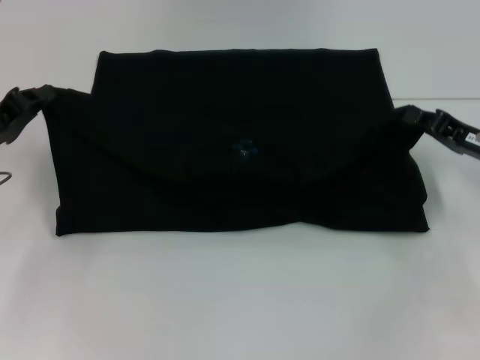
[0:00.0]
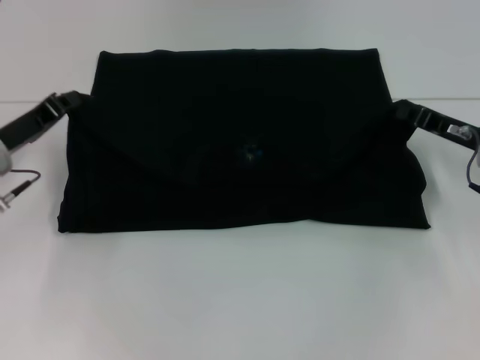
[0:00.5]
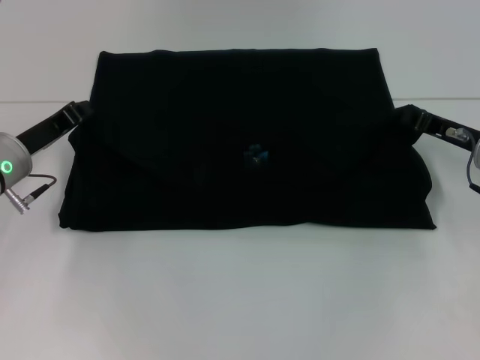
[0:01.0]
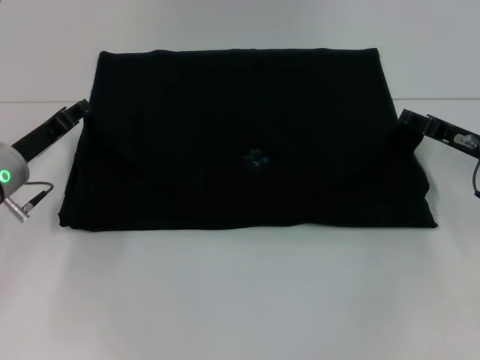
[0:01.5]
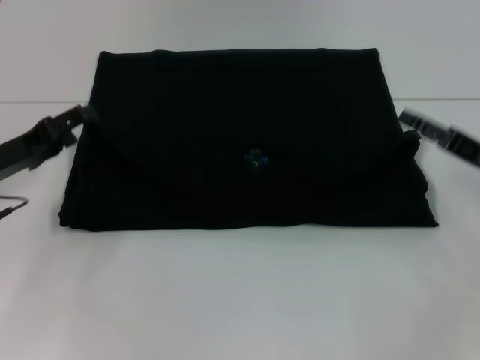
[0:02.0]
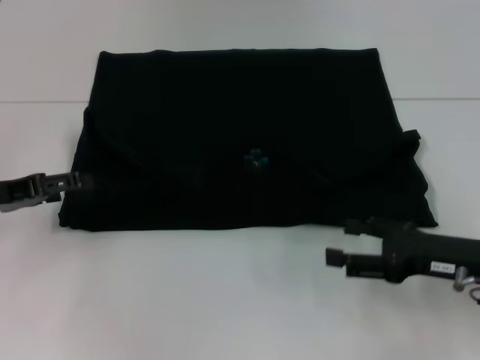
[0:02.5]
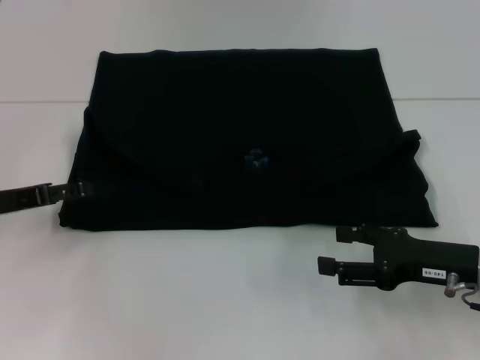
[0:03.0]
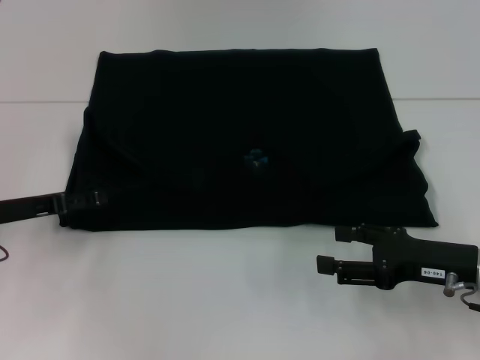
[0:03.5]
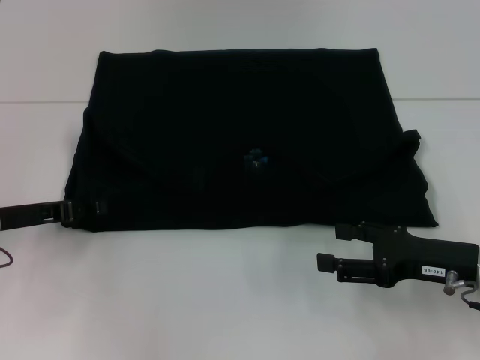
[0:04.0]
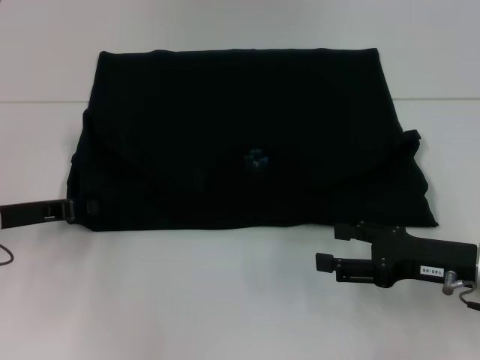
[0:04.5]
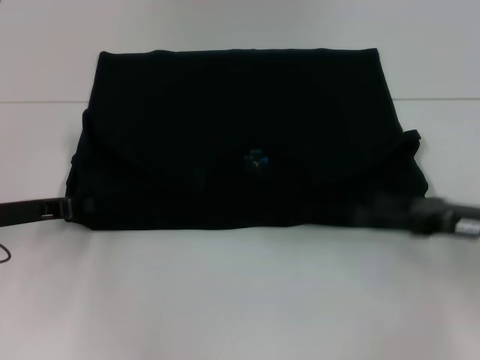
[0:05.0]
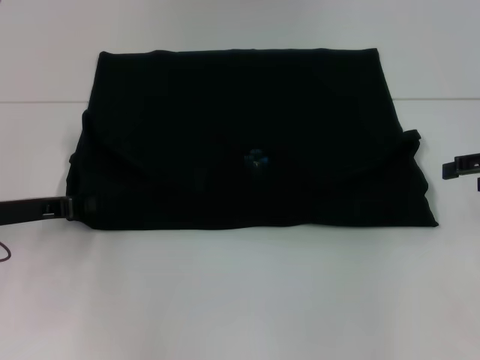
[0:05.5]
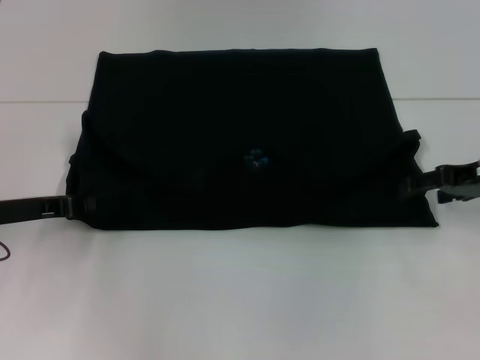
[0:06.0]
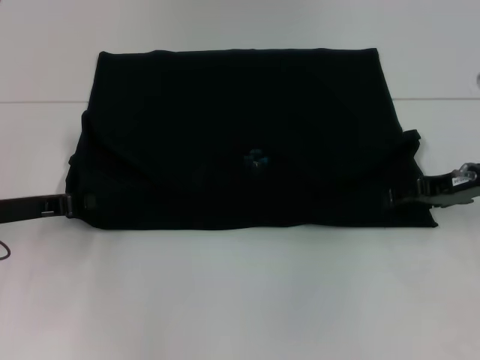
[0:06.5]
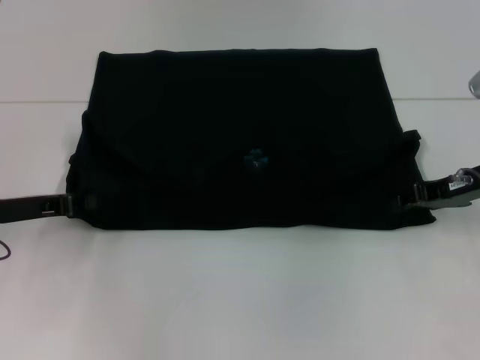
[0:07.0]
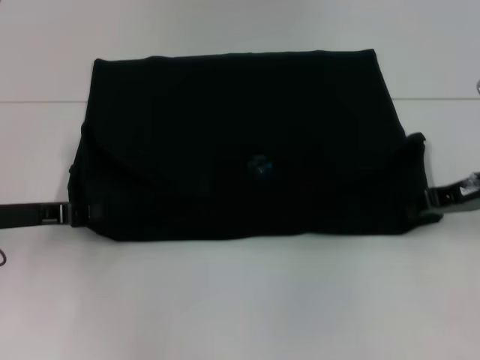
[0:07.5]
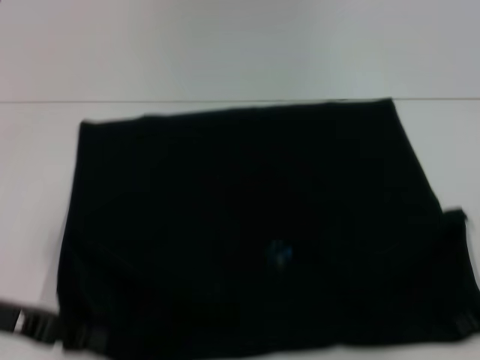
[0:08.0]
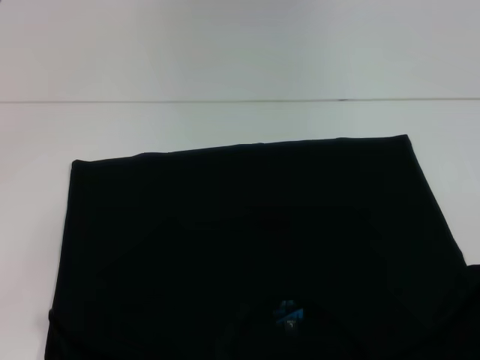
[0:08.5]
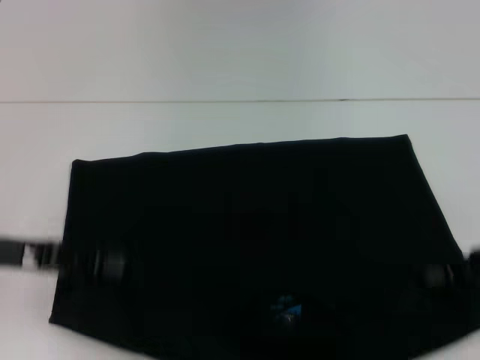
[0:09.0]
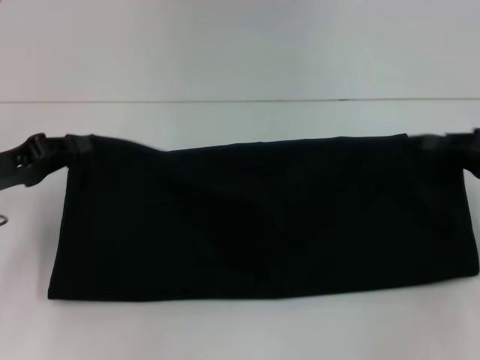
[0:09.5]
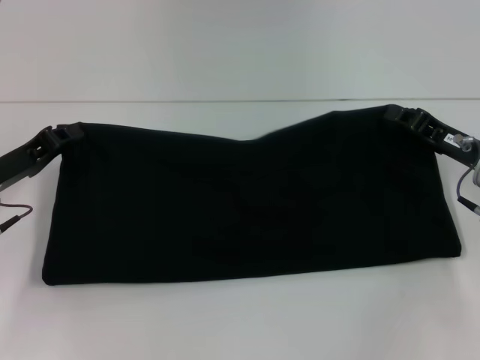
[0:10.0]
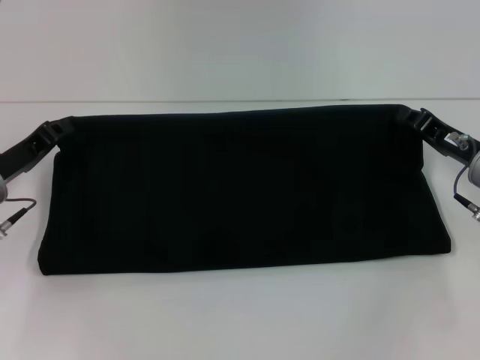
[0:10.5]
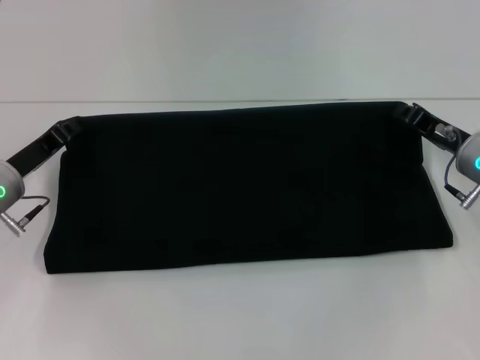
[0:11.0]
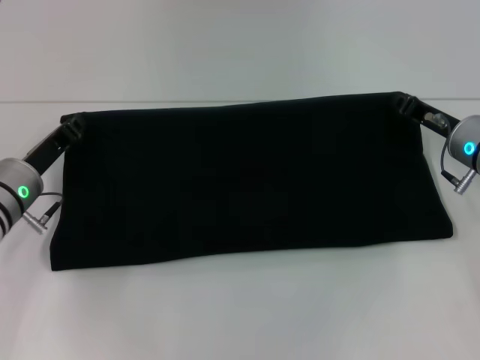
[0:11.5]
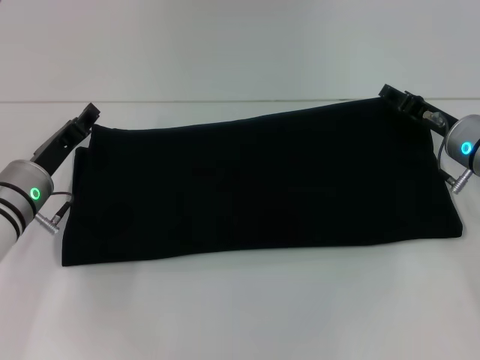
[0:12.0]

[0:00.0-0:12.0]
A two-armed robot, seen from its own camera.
Step, 0:02.0 to 0:08.0: Pull the clothes with your left hand.
Step, 0:02.0 to 0:08.0: Pull the clothes with your right hand.
0:00.0 to 0:02.0: The right gripper opens its fingers. Meanwhile the left gripper opens its fingers.
0:02.0 to 0:04.0: The right gripper is displaced backward by approximately 5 cm.
0:04.0 to 0:06.0: The right gripper is displaced forward and upward by some 10 cm. The left gripper closes.
0:06.0 to 0:08.0: The two grippers go about 5 cm backward. The right gripper closes up.
0:08.0 to 0:10.0: The right gripper changes place by some 10 cm, while the left gripper heads forward, covering roughly 5 cm.
0:10.0 to 0:12.0: The right gripper shifts by roughly 5 cm, and opens its fingers; the left gripper travels to the right by about 5 cm.

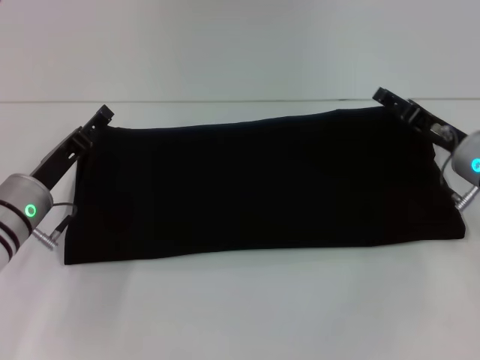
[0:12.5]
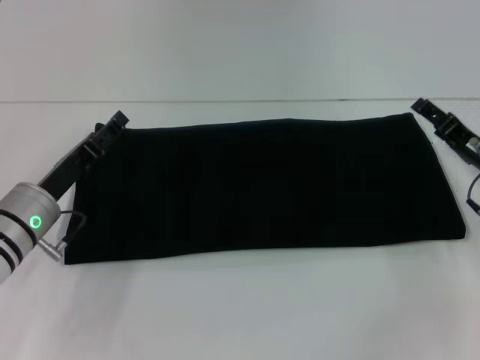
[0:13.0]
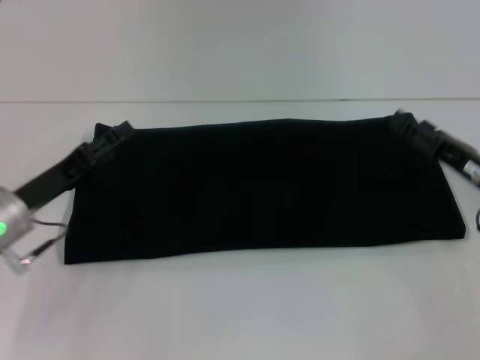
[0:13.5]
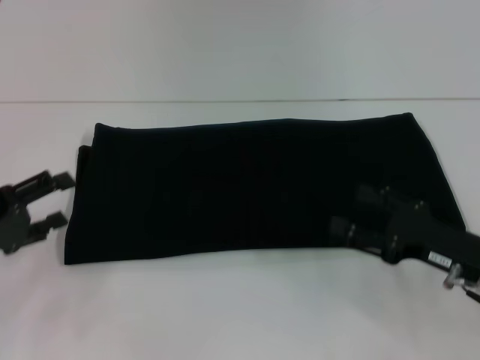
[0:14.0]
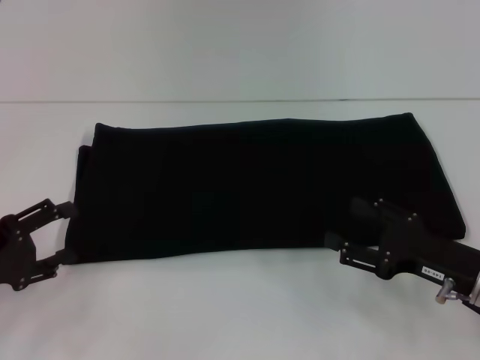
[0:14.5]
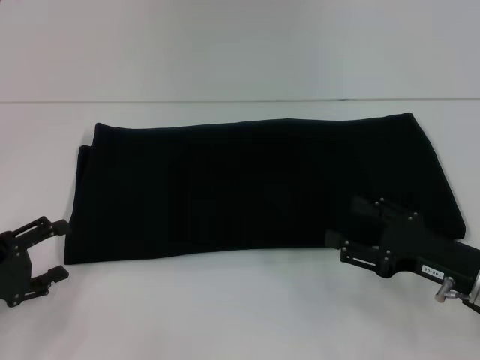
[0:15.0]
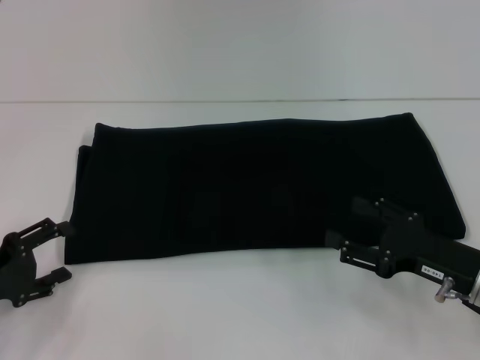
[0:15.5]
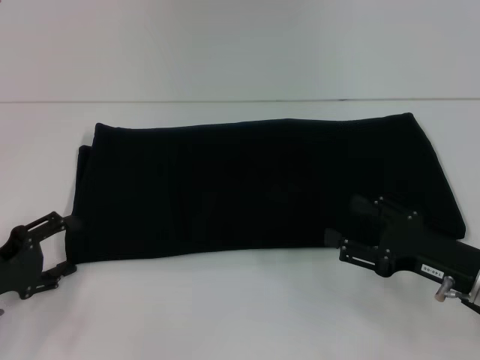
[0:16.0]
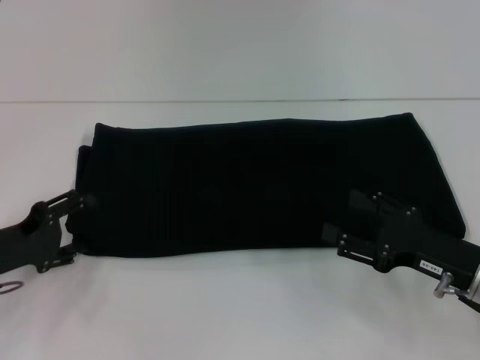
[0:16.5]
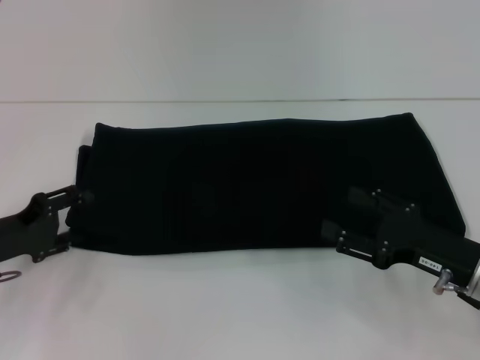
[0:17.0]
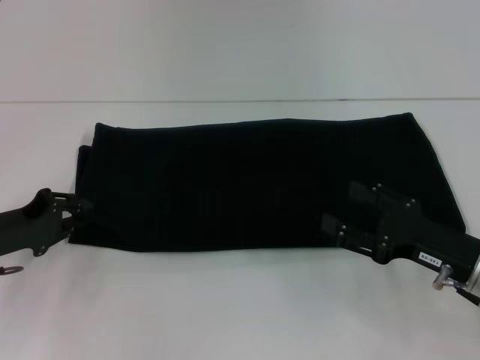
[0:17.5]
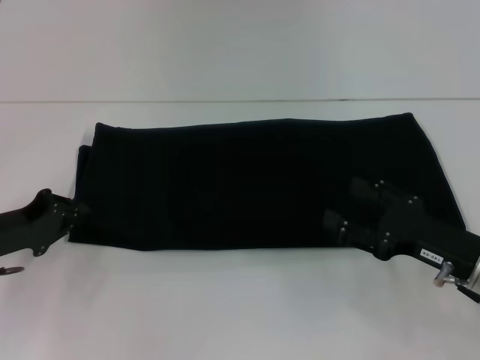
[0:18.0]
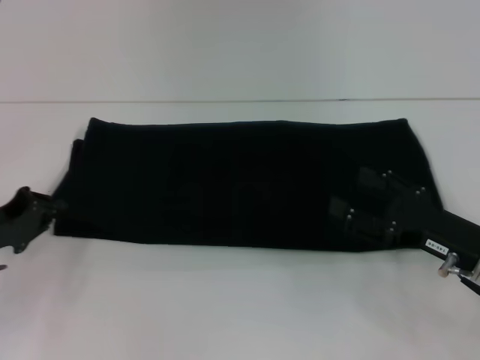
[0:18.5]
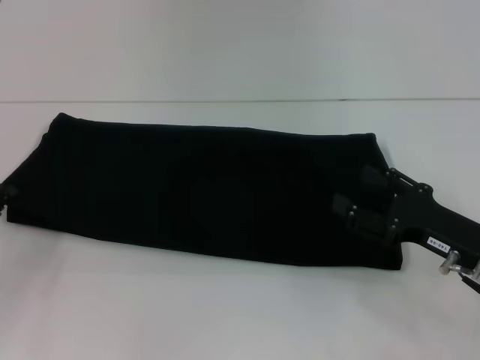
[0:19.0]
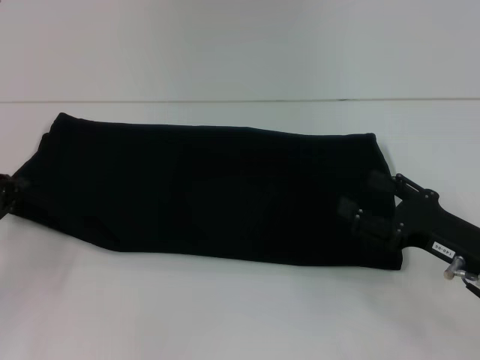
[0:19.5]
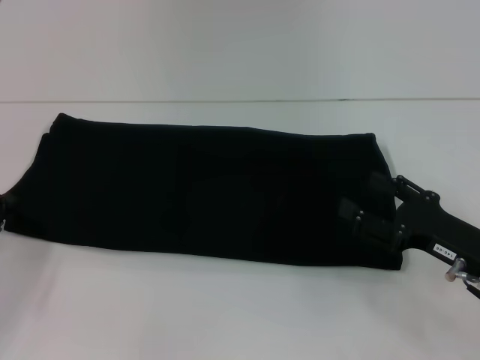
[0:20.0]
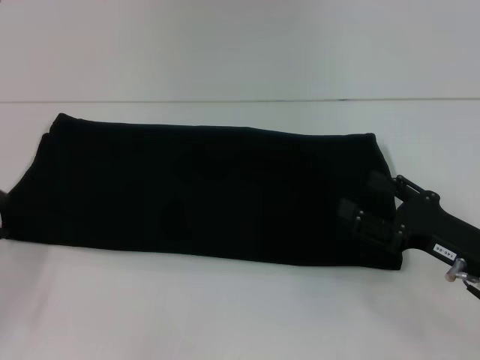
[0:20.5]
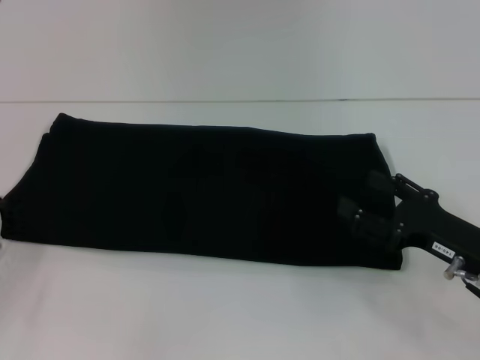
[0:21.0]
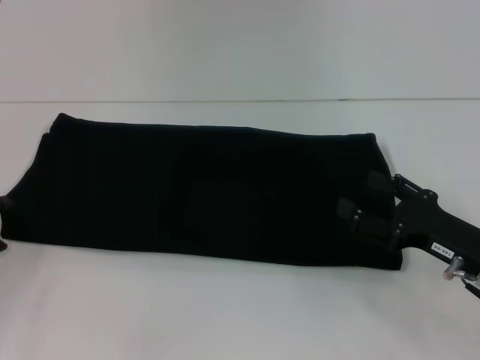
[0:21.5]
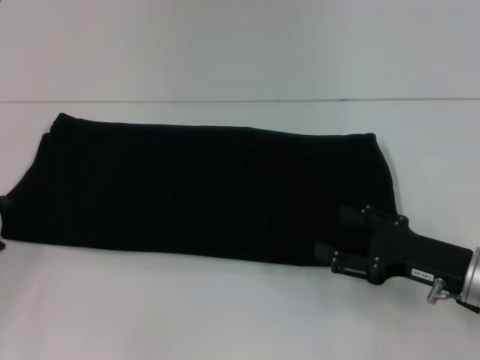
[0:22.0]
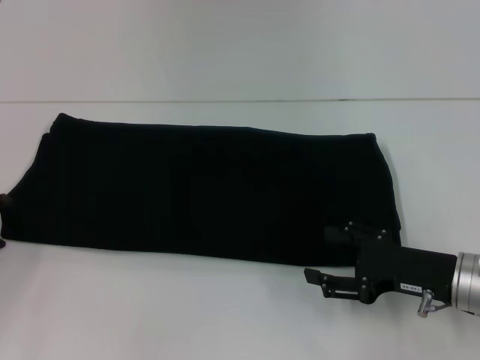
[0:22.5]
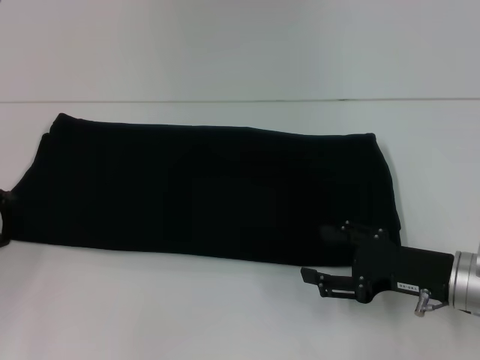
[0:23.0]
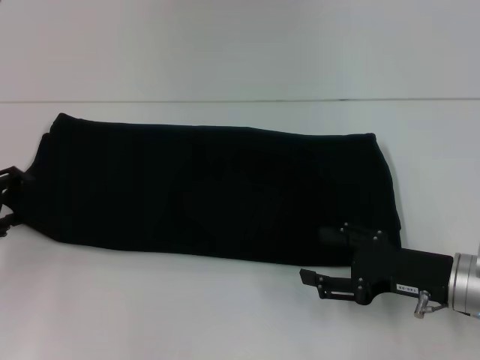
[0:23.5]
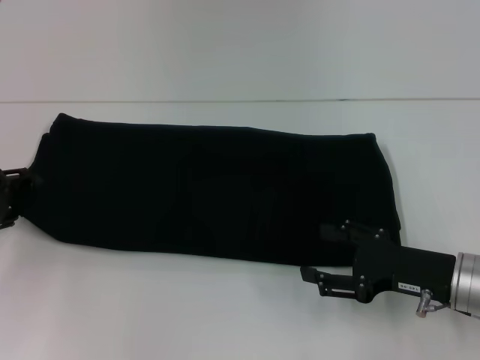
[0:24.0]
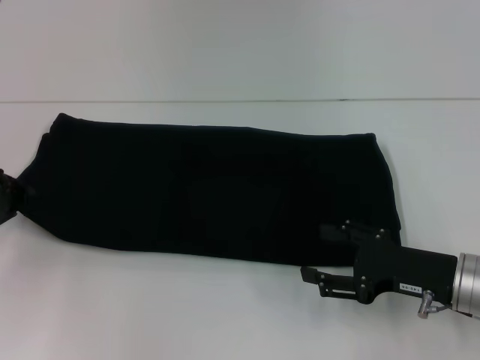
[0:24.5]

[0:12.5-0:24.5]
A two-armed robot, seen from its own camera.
0:12.5 to 0:14.5: The right gripper shifts about 10 cm backward; the left gripper travels backward and to the left by approximately 15 cm.
0:14.5 to 0:16.5: The grippers move only a little.
0:16.5 to 0:18.5: The left gripper closes.
0:18.5 to 0:20.5: The left gripper shifts by approximately 5 cm, and opens.
0:22.5 to 0:24.5: The left gripper ends up some 5 cm from where it was, and closes.

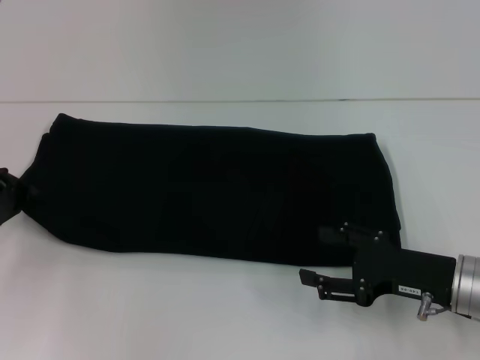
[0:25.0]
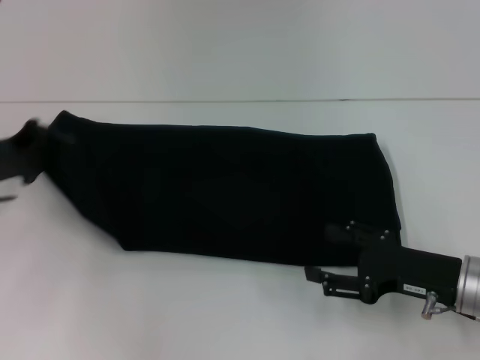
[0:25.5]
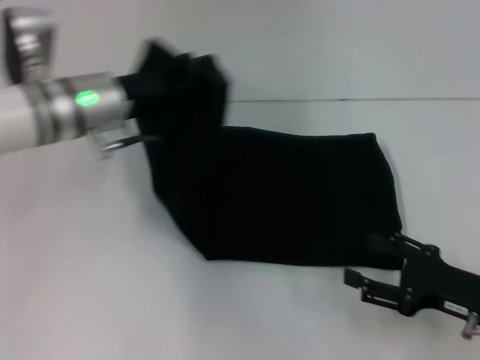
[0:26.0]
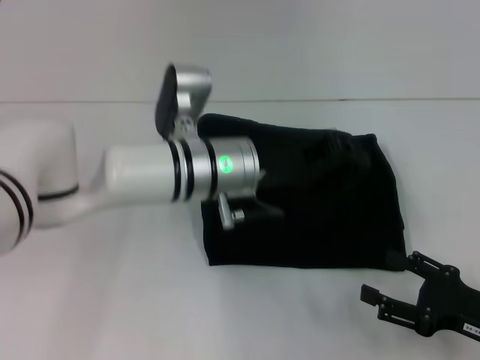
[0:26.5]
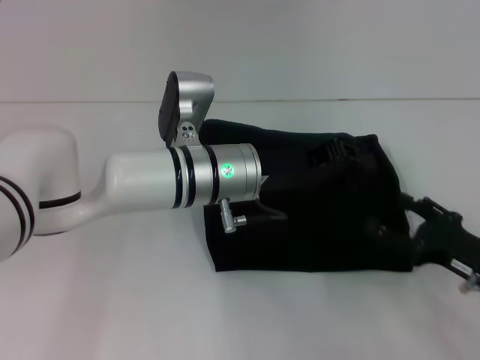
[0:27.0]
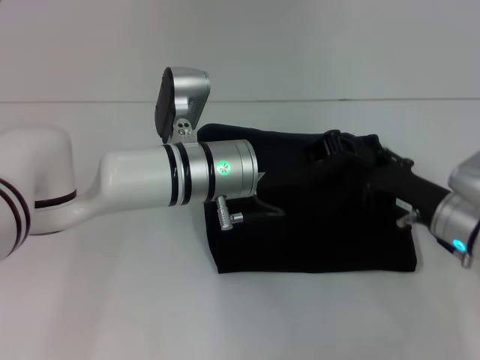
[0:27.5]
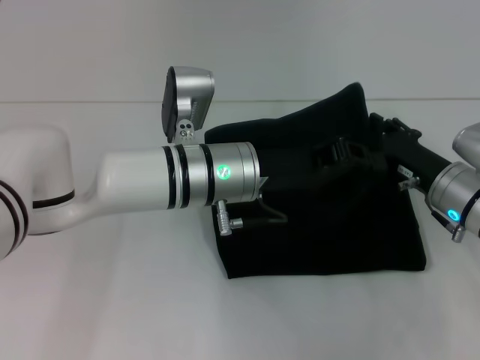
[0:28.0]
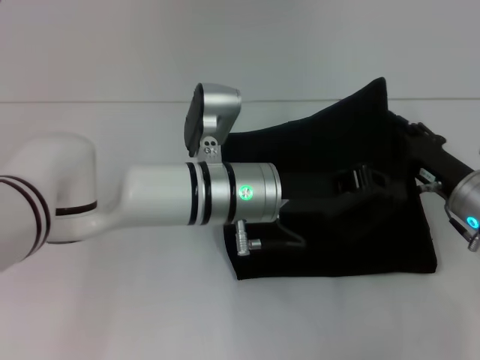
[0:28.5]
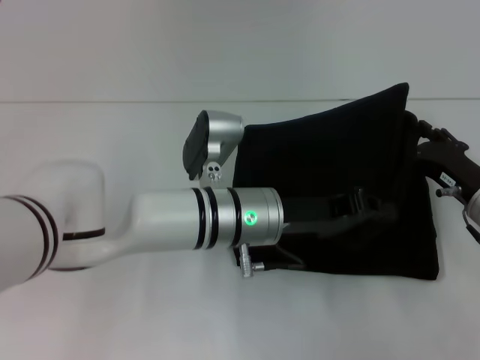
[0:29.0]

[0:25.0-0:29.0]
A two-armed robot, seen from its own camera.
0:25.0 to 0:27.0: The left gripper goes roughly 30 cm to the right.
0:27.0 to 0:29.0: The right gripper moves forward, about 10 cm.
